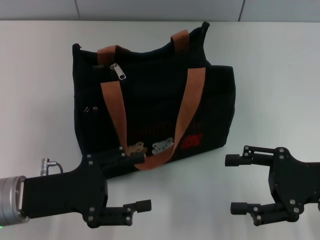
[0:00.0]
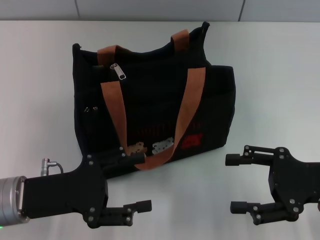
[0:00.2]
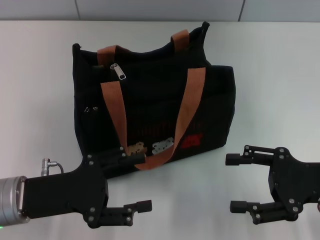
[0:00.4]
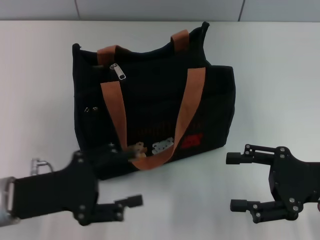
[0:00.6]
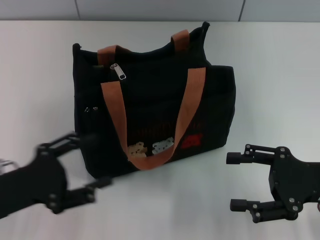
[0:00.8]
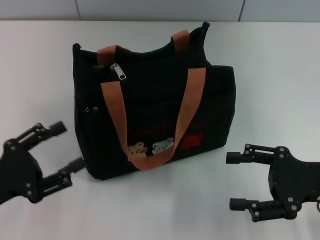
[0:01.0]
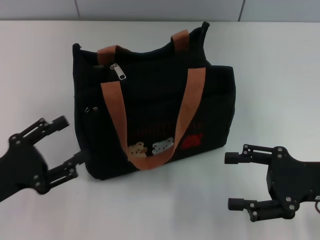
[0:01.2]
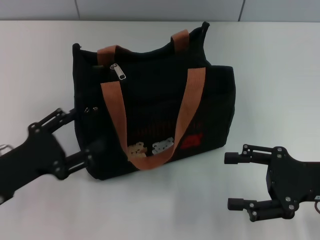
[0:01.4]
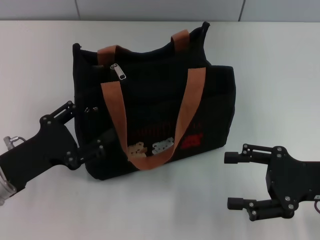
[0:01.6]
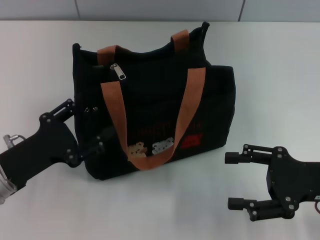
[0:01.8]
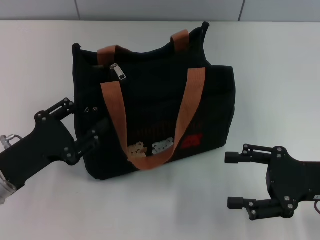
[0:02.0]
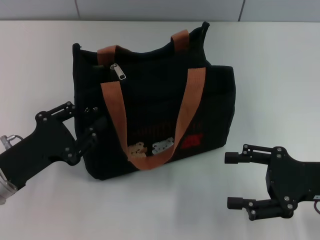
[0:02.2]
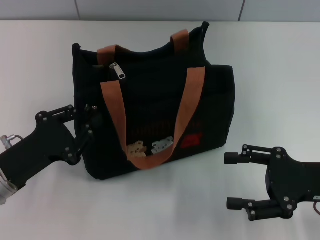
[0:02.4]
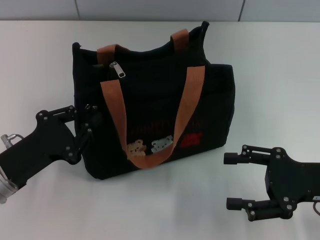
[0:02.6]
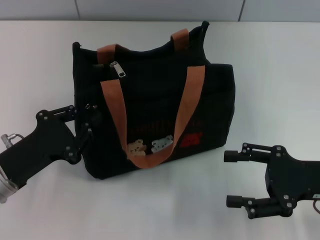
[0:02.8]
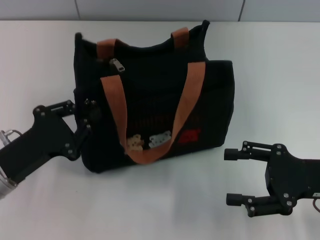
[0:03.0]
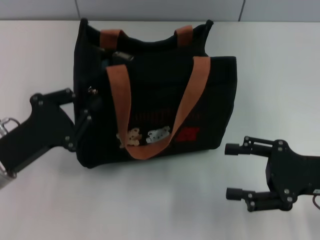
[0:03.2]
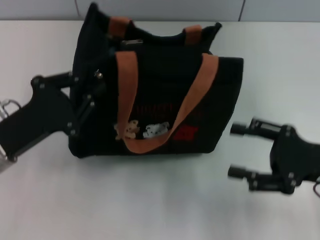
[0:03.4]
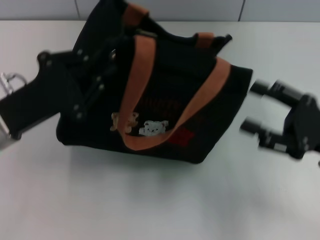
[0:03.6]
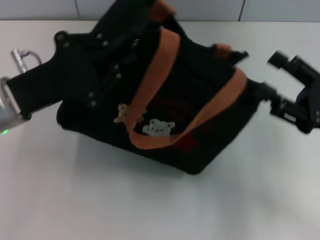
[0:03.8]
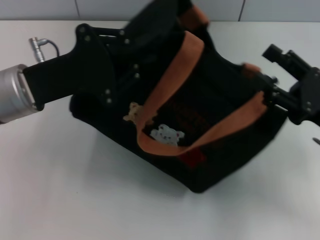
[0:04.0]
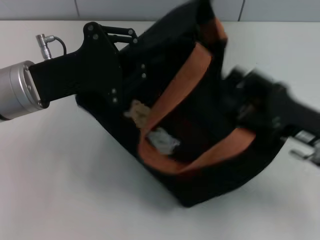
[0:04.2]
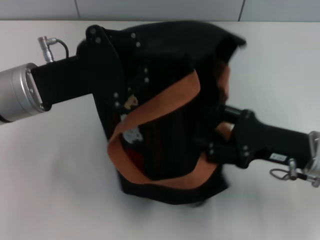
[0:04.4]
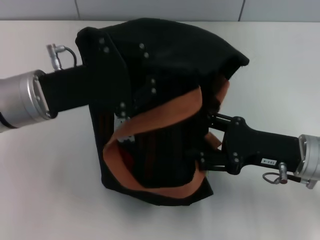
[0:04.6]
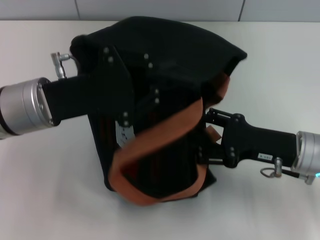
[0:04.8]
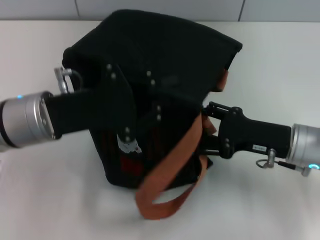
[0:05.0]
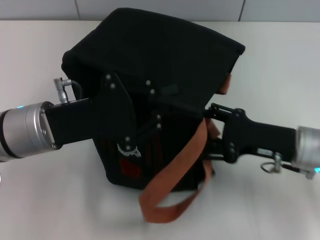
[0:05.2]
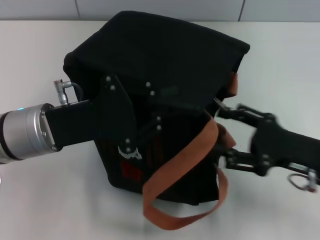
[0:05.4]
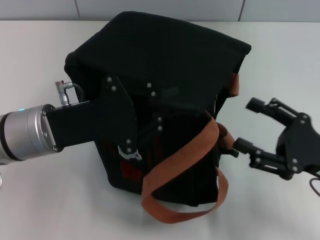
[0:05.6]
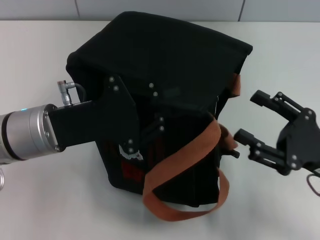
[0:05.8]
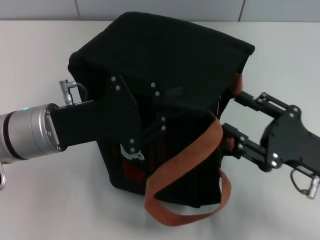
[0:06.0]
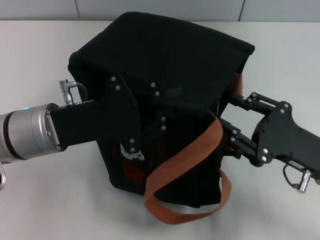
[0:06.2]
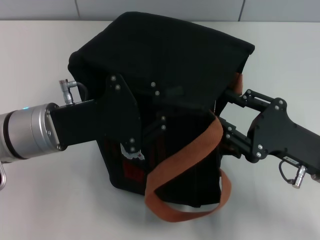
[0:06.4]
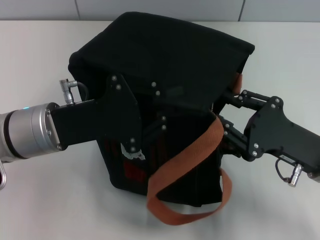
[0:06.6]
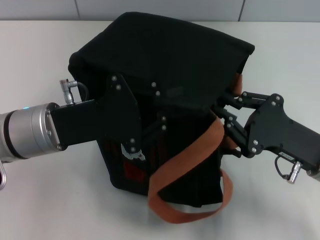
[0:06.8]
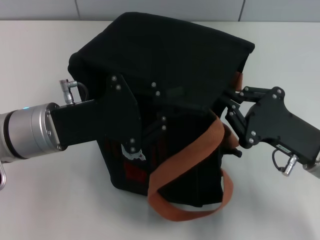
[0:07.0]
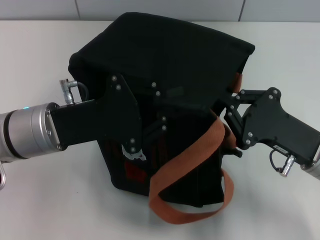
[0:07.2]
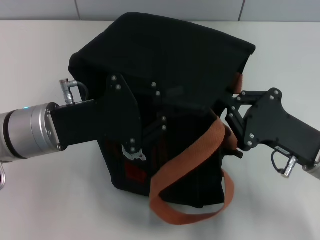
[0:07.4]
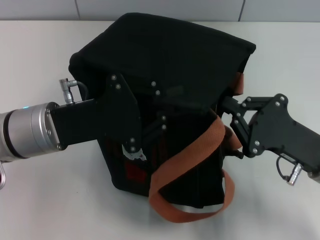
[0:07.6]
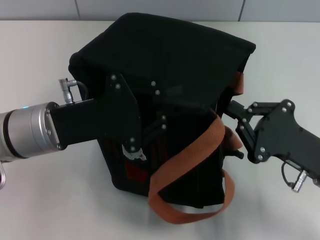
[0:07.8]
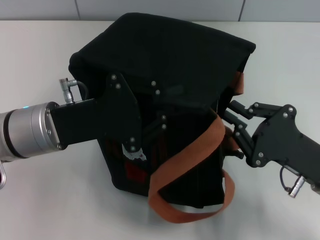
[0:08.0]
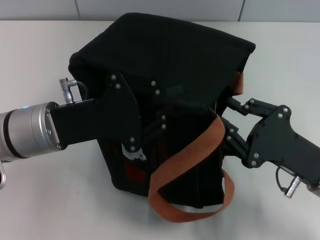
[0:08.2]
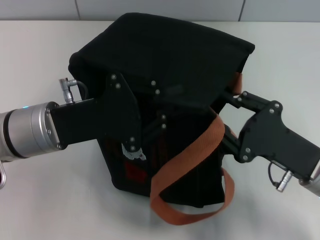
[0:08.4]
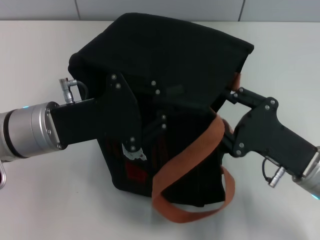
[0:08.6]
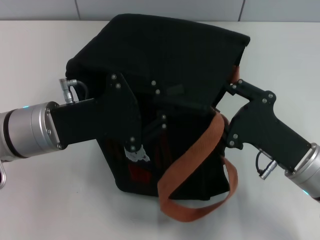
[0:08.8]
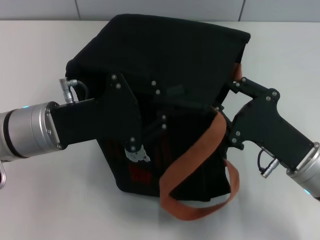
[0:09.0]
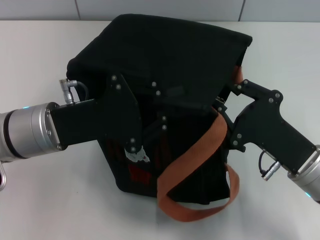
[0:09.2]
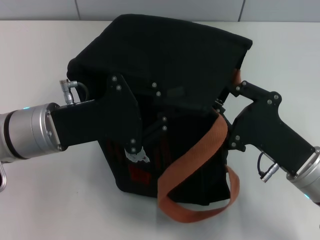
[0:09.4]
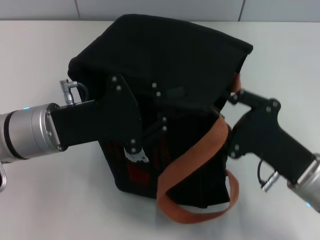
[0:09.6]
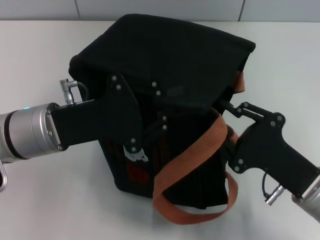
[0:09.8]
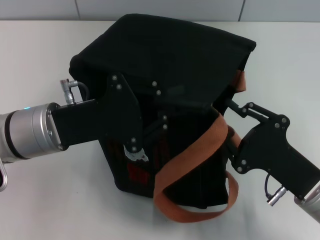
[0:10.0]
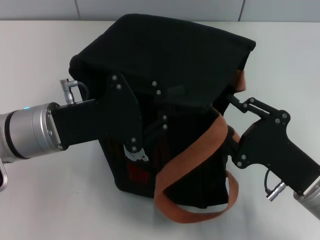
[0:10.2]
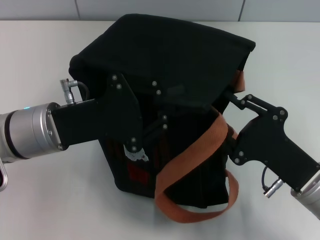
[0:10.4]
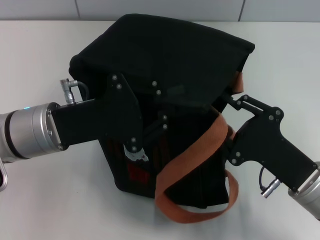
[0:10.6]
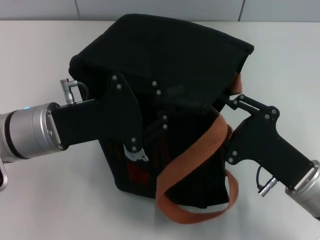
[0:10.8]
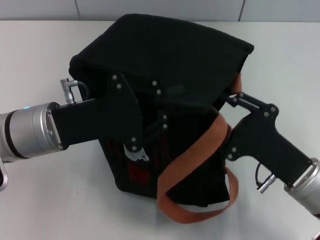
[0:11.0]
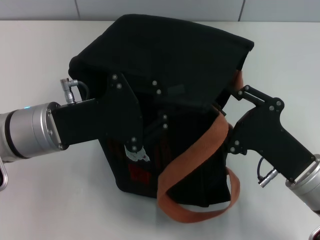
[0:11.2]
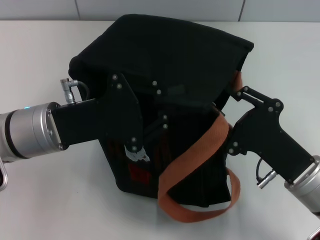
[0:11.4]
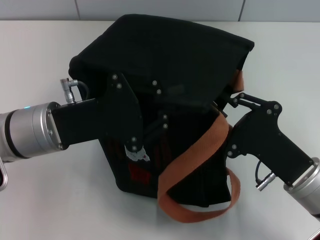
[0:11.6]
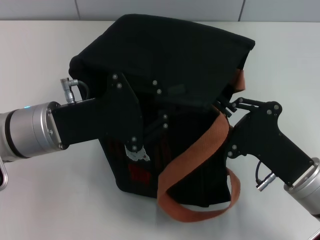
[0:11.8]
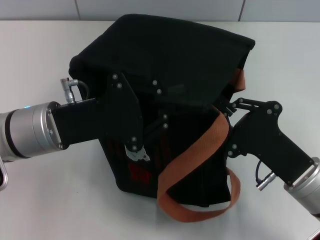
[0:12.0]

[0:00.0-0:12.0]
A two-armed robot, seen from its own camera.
0:01.6 to 0:03.0: The left gripper closes its fingers.
0:03.0 to 0:04.4: The right gripper changes place by about 5 cm. Meanwhile the left gripper is displaced upward, forward and to the right by about 15 cm.
0:06.0 to 0:07.6: The right gripper closes.
0:07.6 to 0:09.0: The right gripper opens.
0:09.0 to 0:10.4: There are only small adjustments of the grippers.
0:10.4 to 0:12.0: Both grippers stay about where they are.

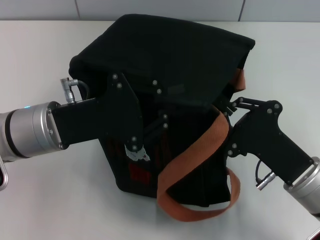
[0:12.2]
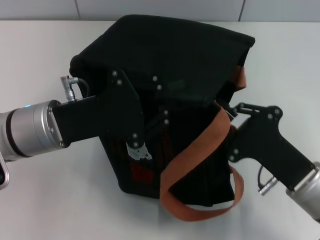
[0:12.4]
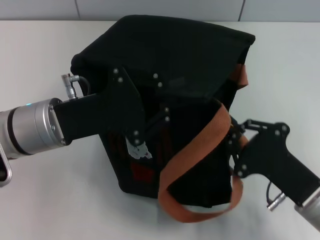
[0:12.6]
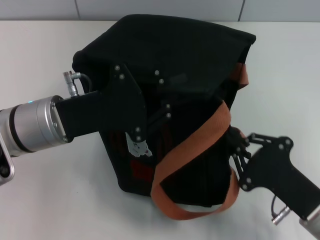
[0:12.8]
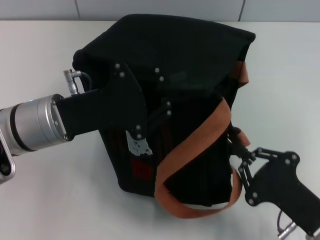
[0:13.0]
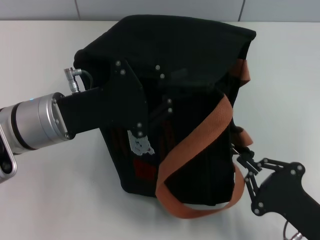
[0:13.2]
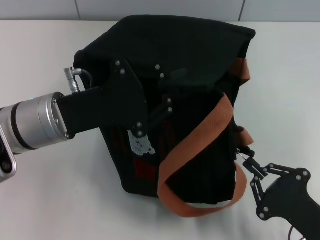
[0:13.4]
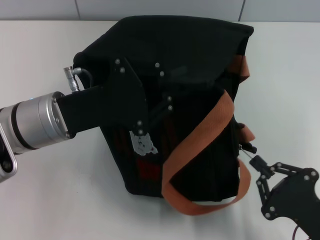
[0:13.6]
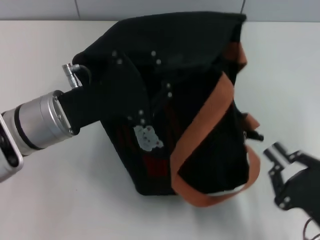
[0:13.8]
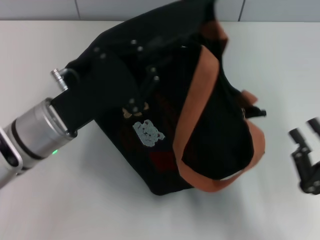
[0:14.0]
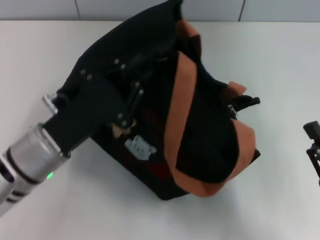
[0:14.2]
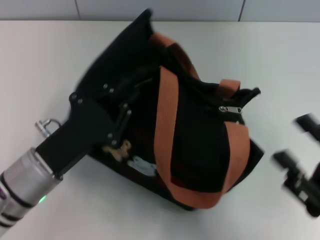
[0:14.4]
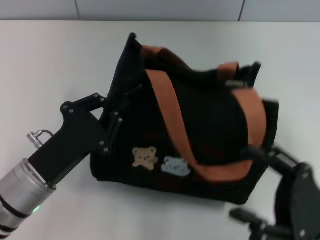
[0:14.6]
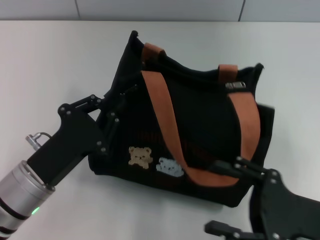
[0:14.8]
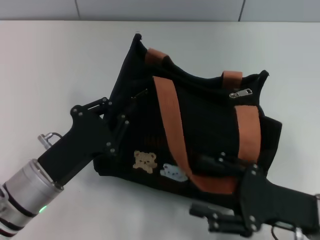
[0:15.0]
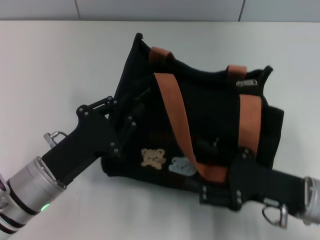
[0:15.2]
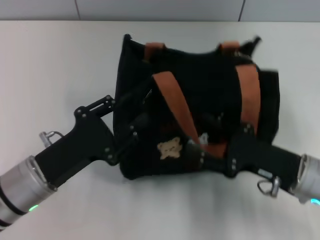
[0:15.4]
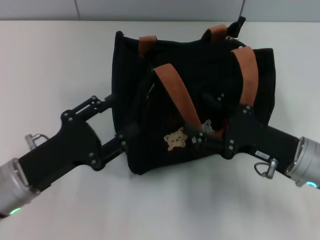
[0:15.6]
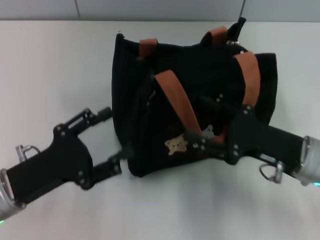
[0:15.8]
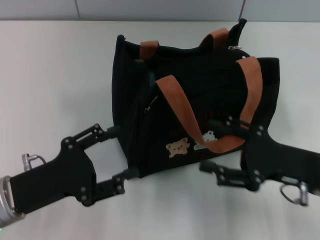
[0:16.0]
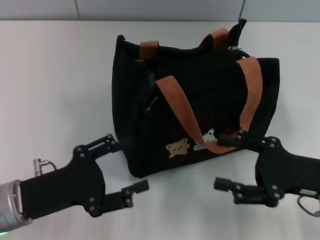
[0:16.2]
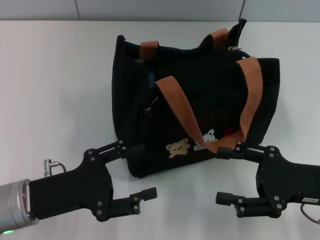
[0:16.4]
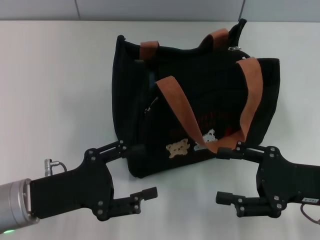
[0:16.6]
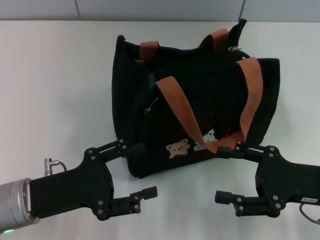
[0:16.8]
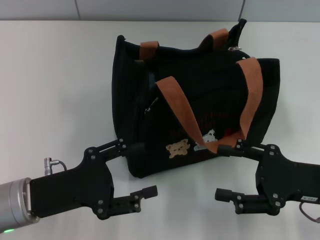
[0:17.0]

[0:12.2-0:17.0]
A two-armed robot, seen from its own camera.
Step, 0:14.0 to 0:15.6: Grab the bag with your left hand.
0:12.2 to 0:13.8: The right gripper moves backward, approximately 10 cm.
0:13.8 to 0:15.4: The right gripper is displaced forward by about 10 cm, and opens up; the left gripper moves backward and downward, approximately 10 cm.
0:15.4 to 0:17.0: The left gripper opens its fingers, while the right gripper changes place by roughly 5 cm.
